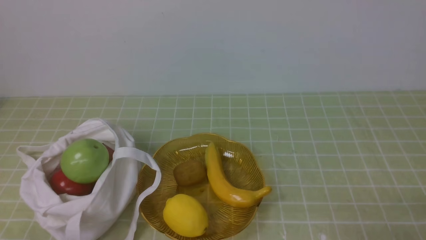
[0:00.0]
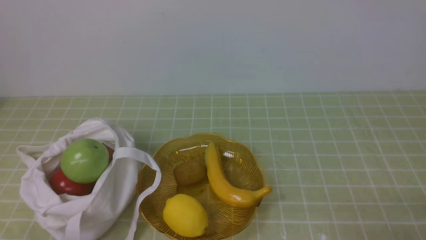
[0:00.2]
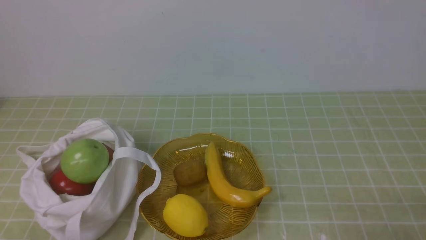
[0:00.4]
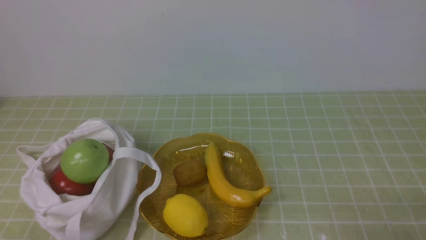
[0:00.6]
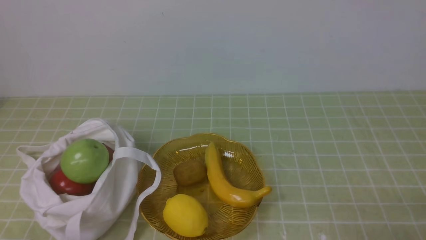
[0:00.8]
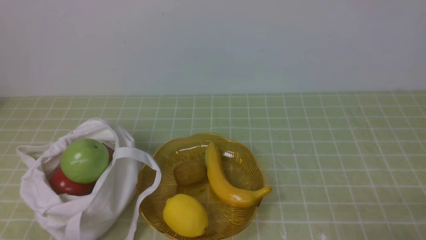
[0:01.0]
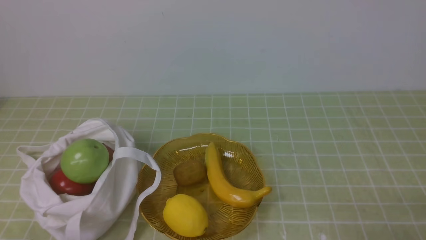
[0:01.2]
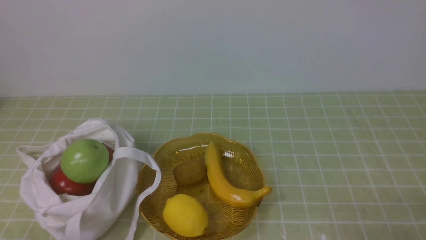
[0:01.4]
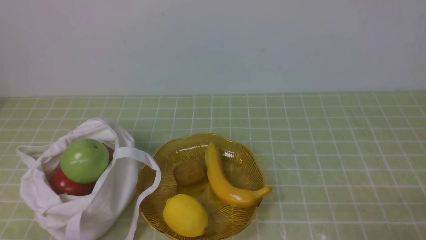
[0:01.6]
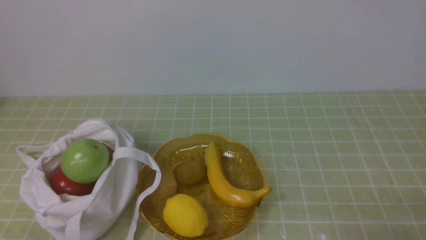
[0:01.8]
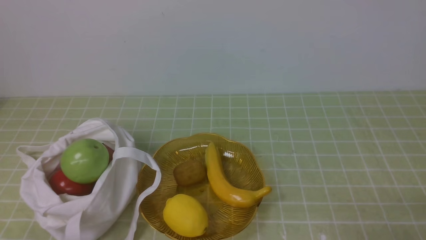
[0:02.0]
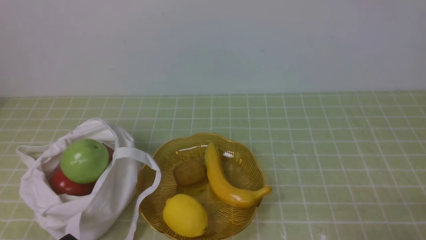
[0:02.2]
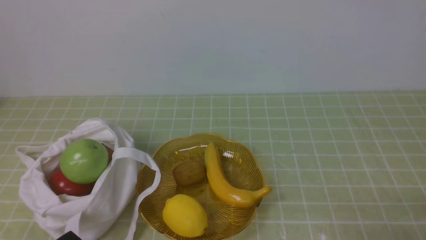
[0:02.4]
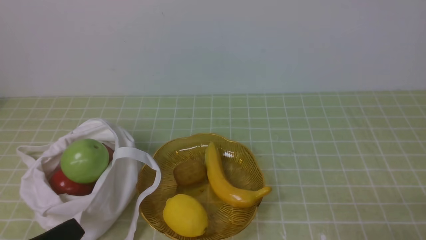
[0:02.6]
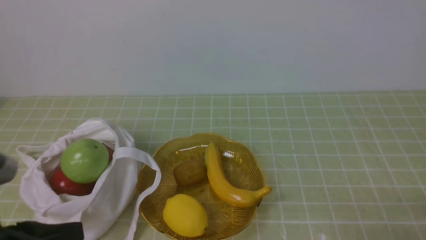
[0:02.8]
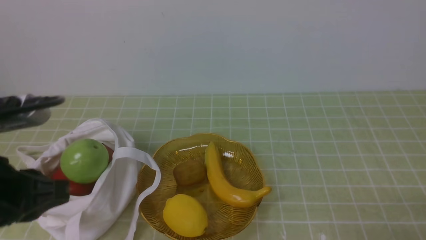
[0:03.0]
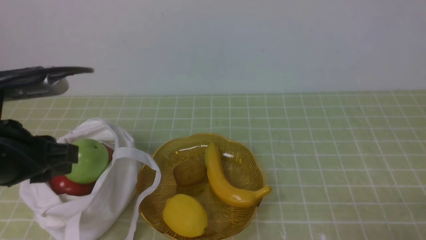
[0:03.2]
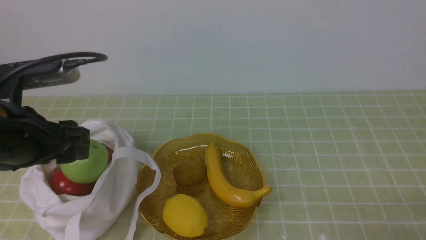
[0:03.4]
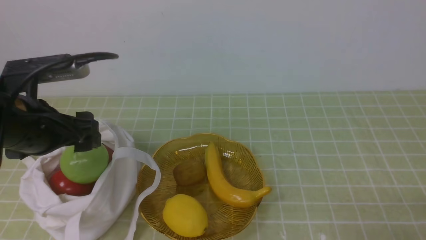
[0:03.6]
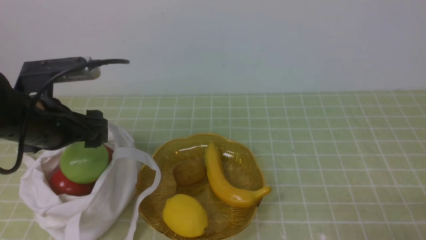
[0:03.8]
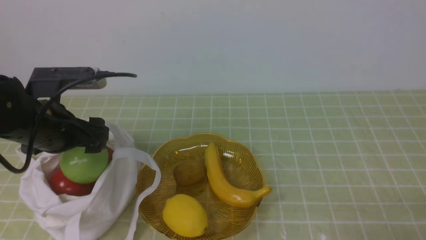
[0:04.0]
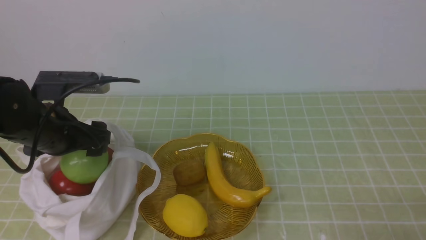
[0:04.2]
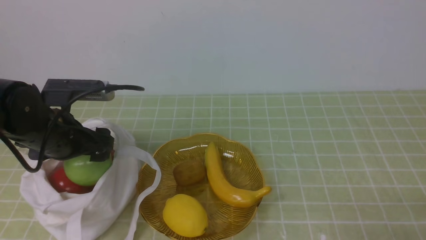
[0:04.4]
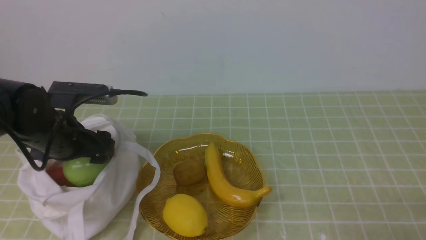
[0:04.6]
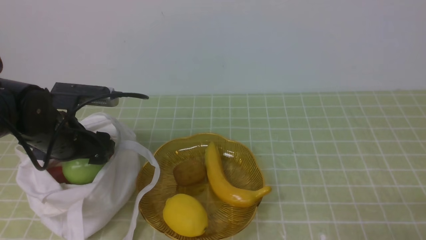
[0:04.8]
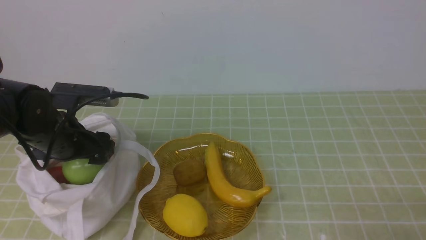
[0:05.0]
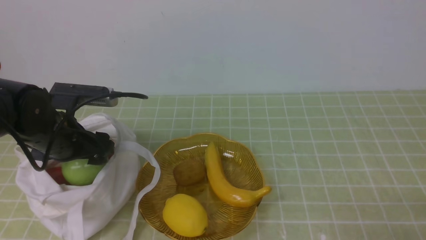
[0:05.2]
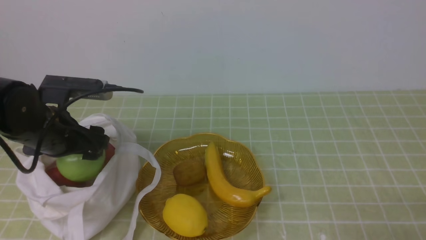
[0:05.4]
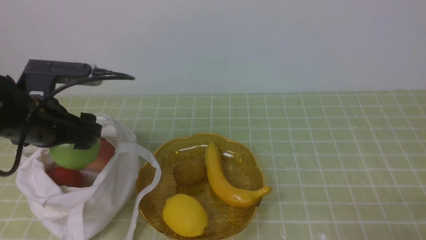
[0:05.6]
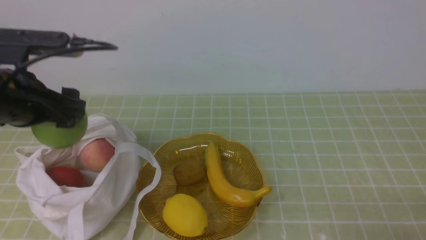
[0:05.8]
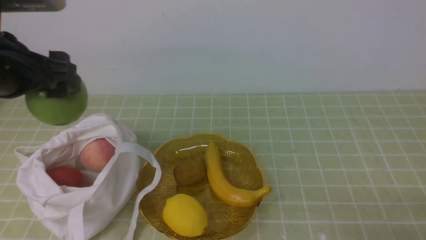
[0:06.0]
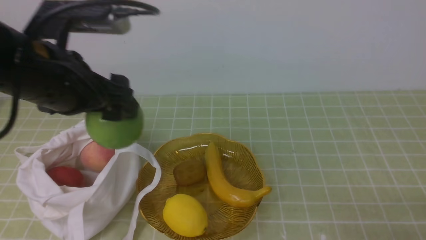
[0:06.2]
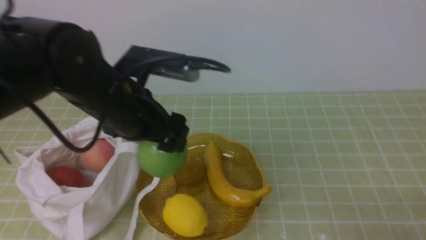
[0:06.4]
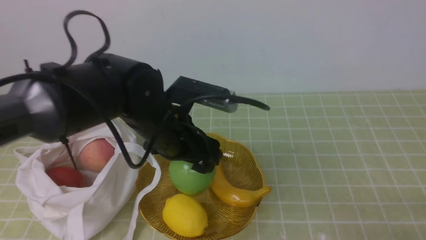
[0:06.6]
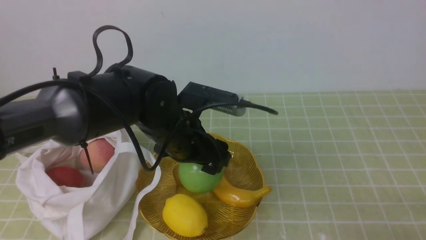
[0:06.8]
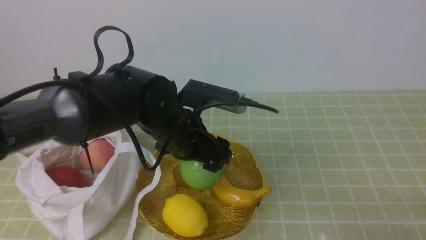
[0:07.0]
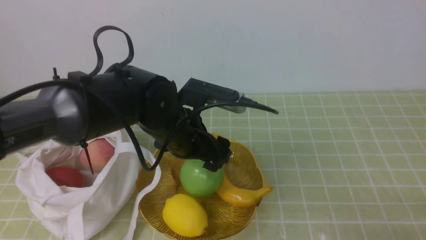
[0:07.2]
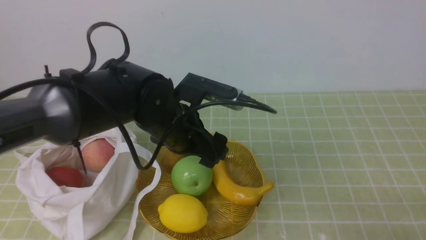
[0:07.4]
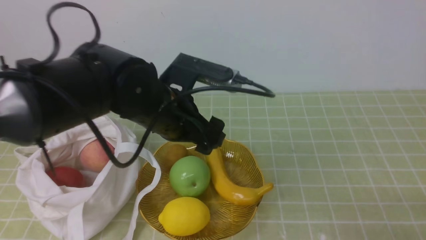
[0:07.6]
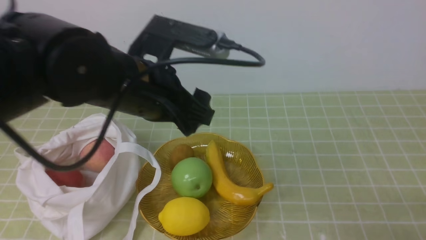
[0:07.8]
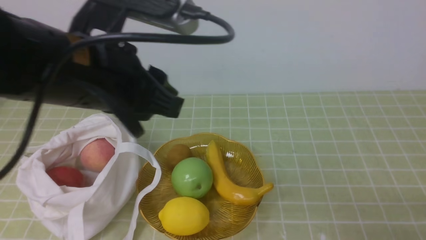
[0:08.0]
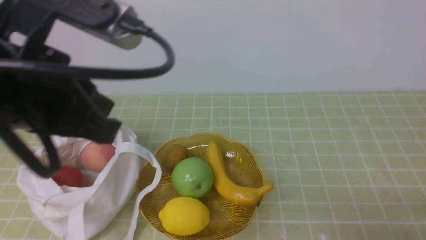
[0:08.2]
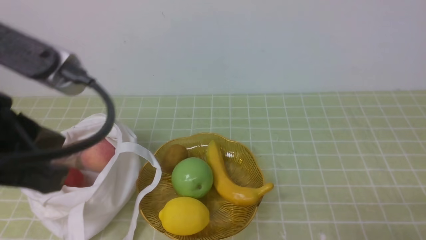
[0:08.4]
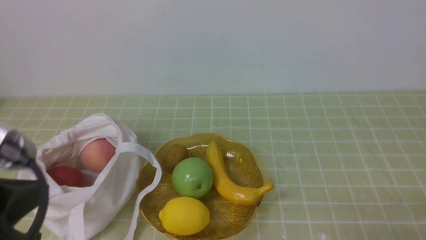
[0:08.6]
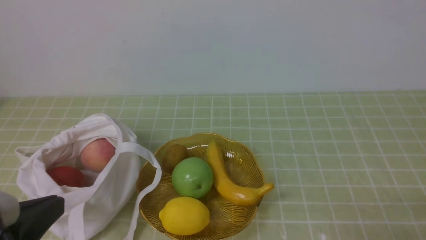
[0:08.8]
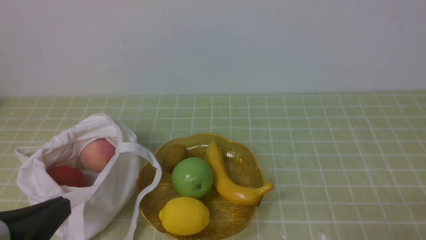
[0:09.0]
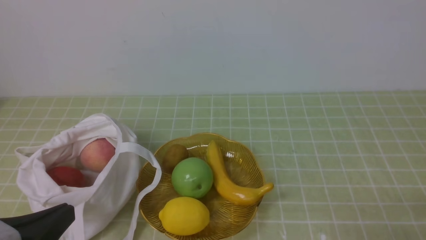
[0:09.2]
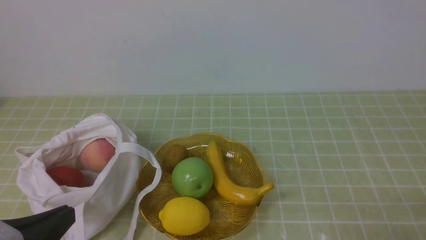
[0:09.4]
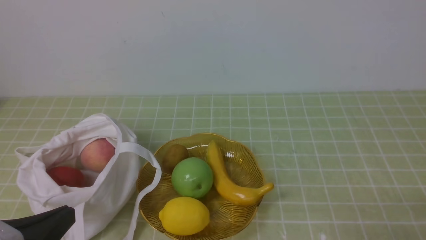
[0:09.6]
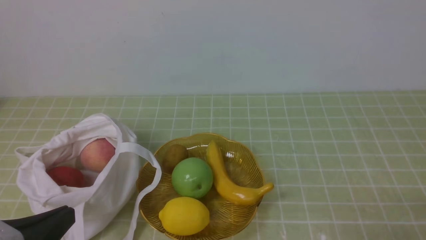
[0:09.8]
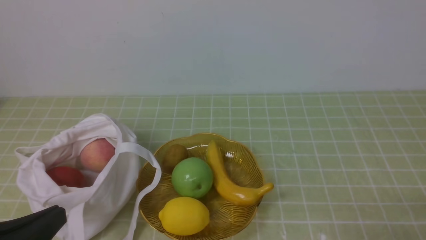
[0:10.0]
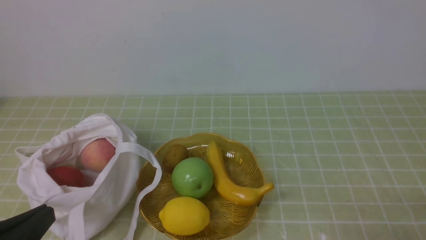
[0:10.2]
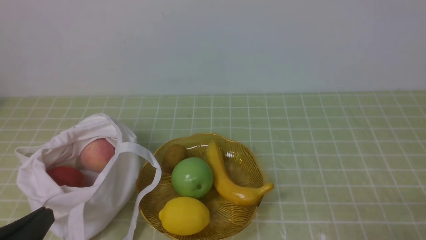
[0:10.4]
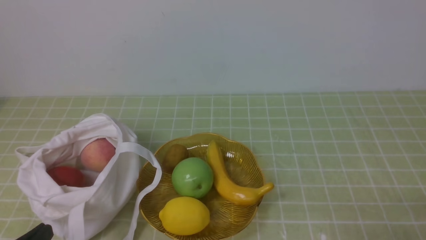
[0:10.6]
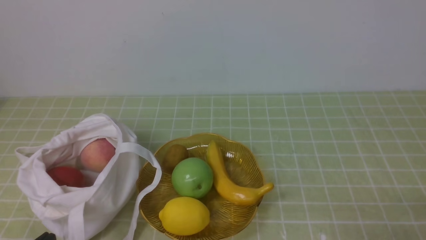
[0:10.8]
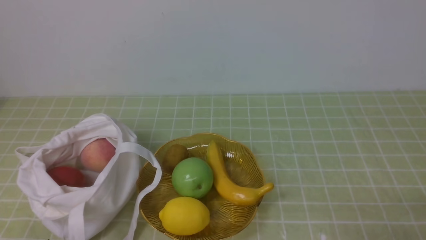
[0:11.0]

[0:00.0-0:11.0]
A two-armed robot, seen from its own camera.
Step, 0:00.0 to 0:05.4: use the left arm to grab an apple from the bag.
Step, 0:05.6 to 0:07.4: use the left arm to put the apple into the empty plate on the right.
0:00.0 to 0:01.6: Neither gripper changes place.
0:01.6 to 0:03.2: The left gripper shifts approximately 20 cm upward and forward, and opens up.
0:03.2 to 0:04.8: The left gripper travels forward and downward by approximately 15 cm, and opens.
0:04.8 to 0:06.2: The left gripper is displaced upward and to the right by roughly 15 cm.
0:06.2 to 0:07.8: The left gripper heads to the right, covering roughly 5 cm.
0:07.8 to 0:09.4: The left gripper travels backward, to the left and downward by roughly 25 cm, and closes up.
0:09.4 to 0:11.0: The left gripper shifts some 10 cm downward.

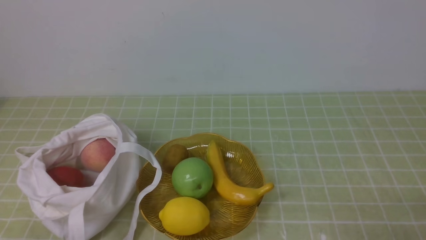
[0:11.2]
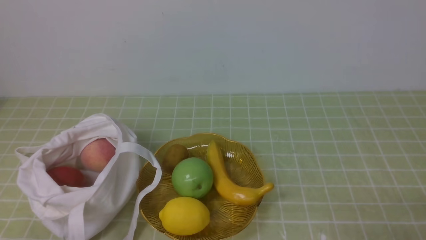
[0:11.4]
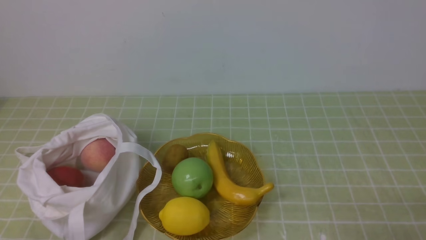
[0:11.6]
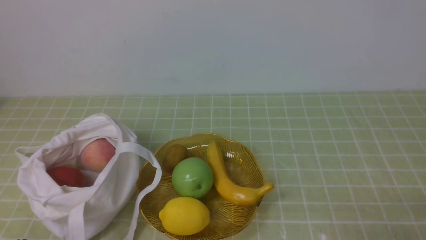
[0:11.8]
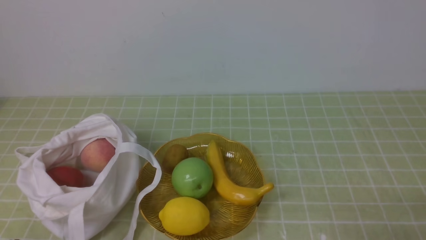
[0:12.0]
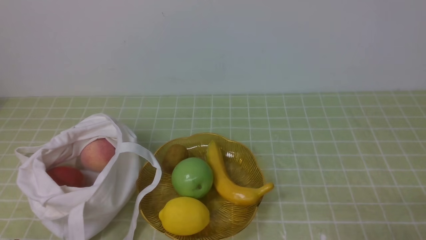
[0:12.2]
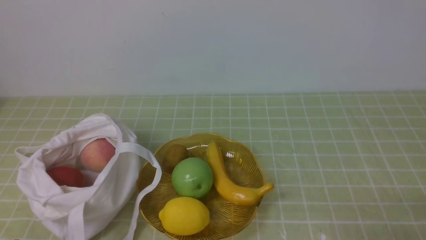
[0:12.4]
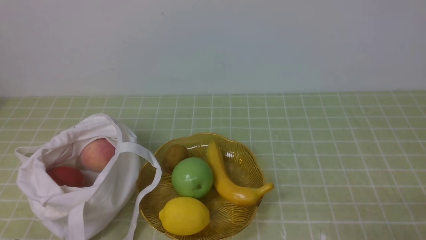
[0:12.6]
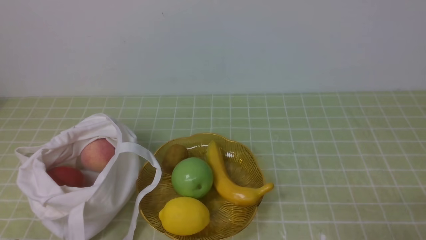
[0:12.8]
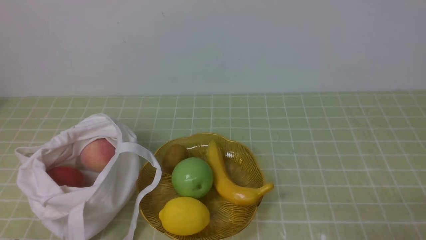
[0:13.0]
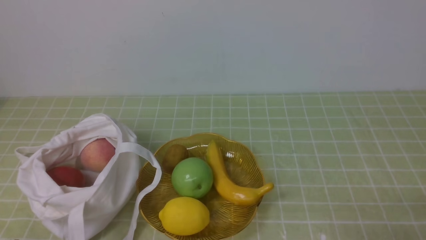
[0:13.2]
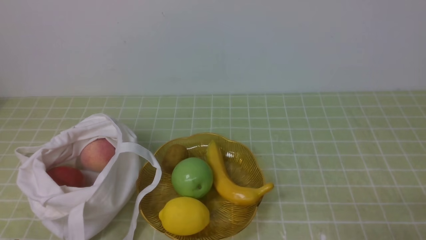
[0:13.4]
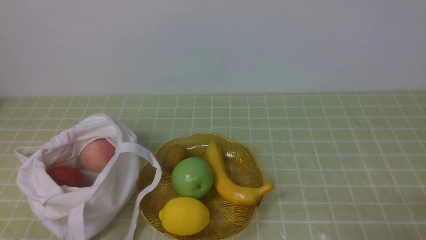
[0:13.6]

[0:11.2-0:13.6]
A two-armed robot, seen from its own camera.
0:12.4 to 0:13.6: Both grippers stay put.

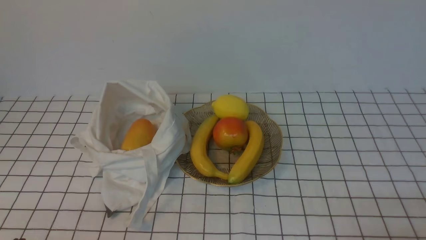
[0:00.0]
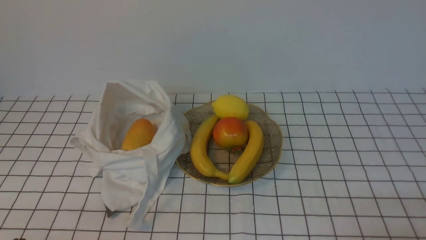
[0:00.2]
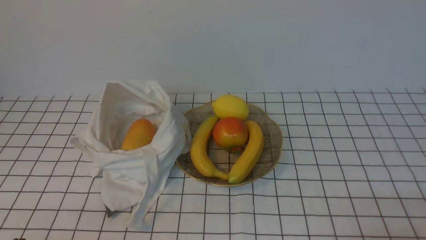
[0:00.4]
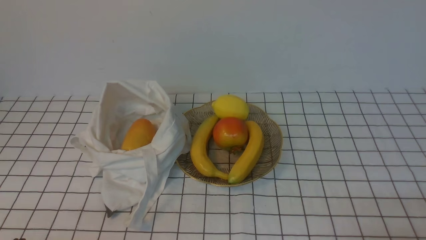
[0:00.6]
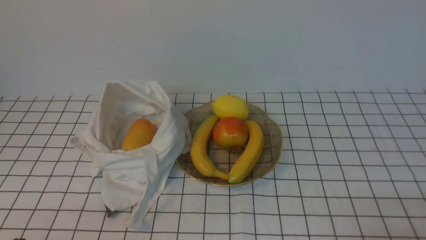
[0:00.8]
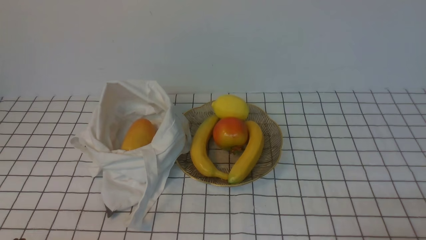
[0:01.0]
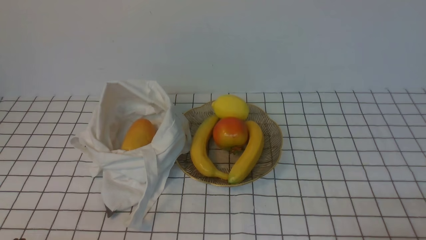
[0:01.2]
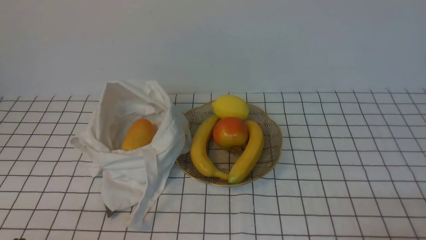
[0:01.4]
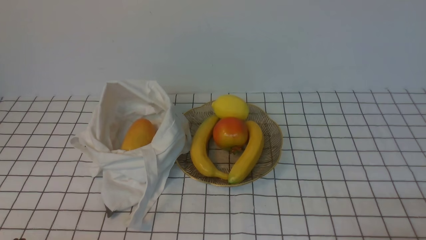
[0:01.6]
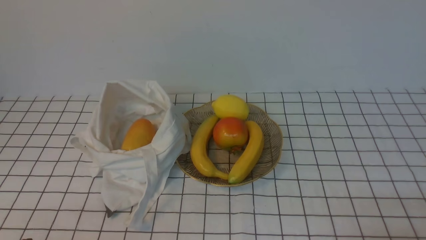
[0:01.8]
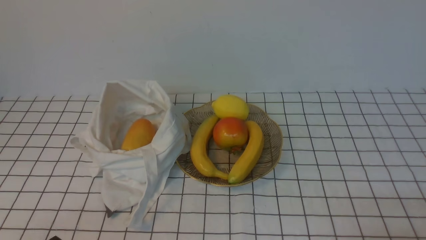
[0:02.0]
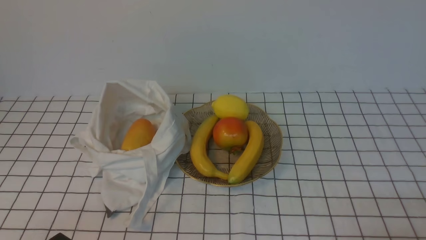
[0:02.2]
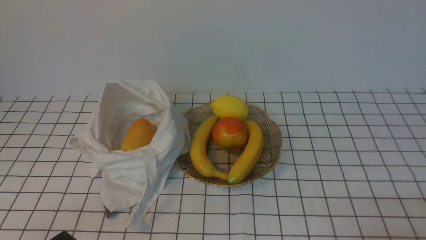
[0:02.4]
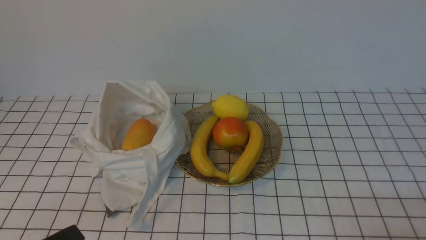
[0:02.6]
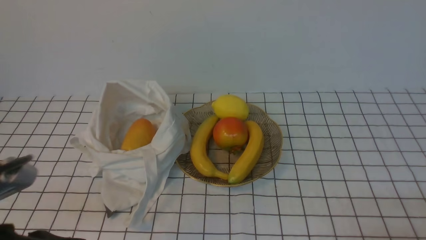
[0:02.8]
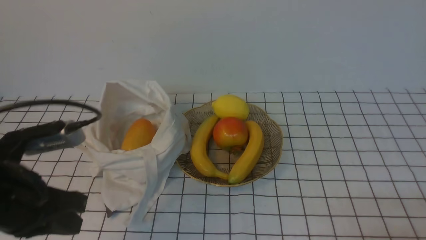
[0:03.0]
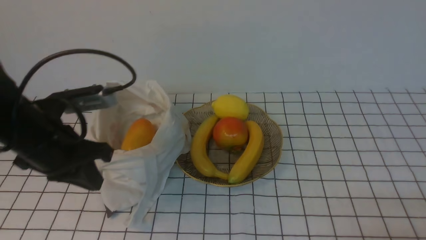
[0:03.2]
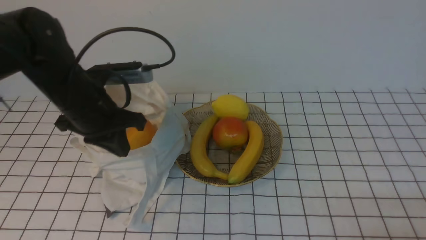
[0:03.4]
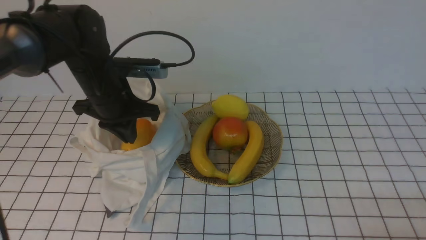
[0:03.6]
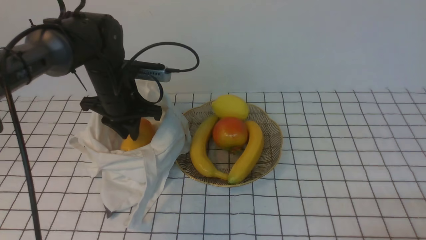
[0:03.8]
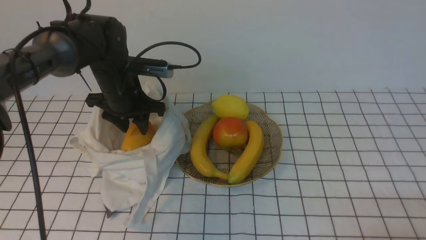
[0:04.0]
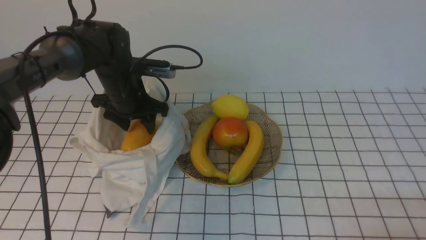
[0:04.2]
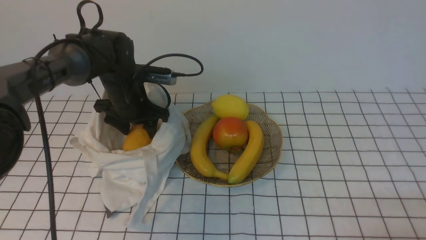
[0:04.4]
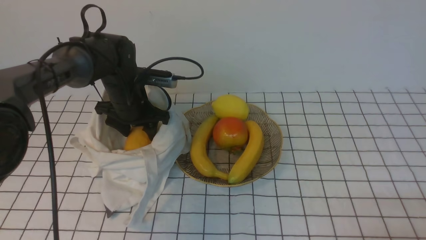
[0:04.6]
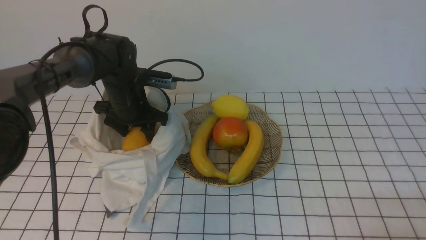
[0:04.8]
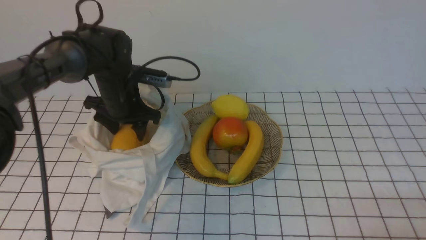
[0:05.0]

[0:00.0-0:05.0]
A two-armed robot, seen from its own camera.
Step, 0:00.0 to 0:04.8: use the left arm to grab a mango from the bag.
0:01.6 to 0:03.4: The left gripper travels forward and upward by roughly 25 cm.
0:03.4 to 0:05.0: The left gripper shifts about 15 cm forward and downward, and opens up.
